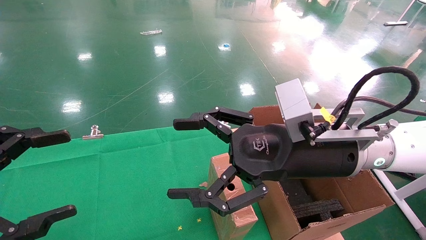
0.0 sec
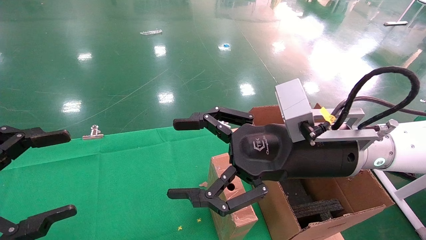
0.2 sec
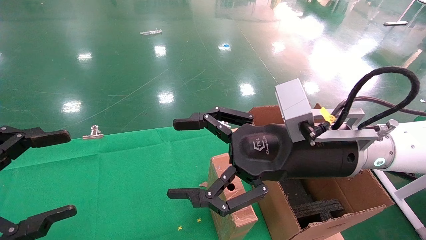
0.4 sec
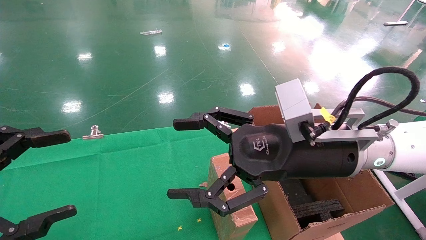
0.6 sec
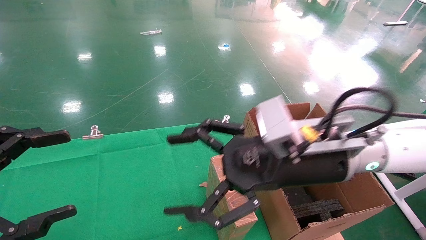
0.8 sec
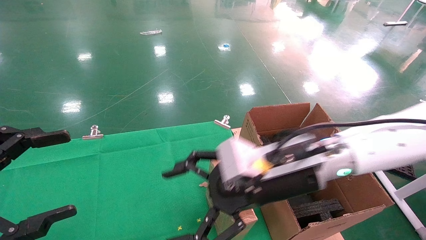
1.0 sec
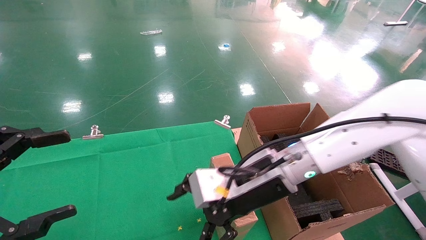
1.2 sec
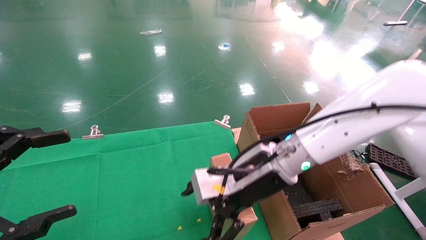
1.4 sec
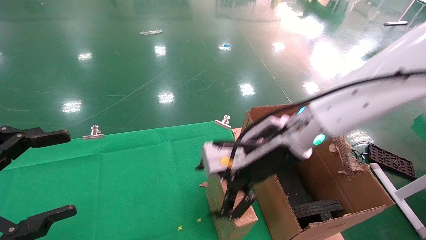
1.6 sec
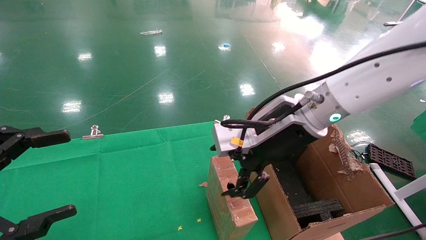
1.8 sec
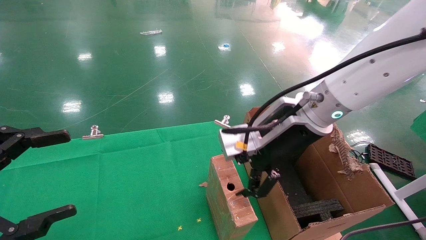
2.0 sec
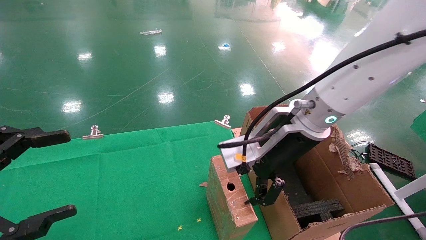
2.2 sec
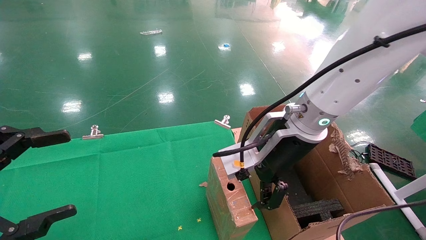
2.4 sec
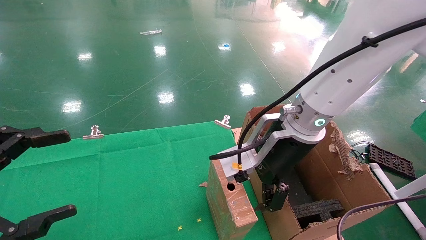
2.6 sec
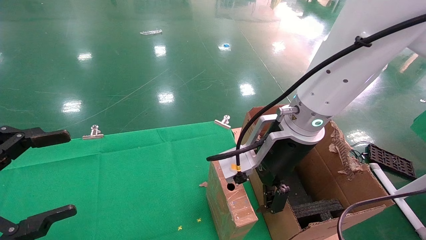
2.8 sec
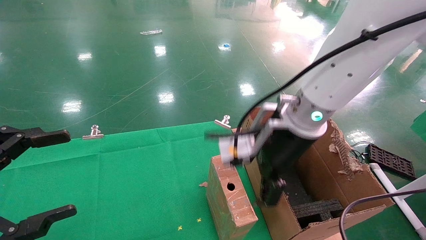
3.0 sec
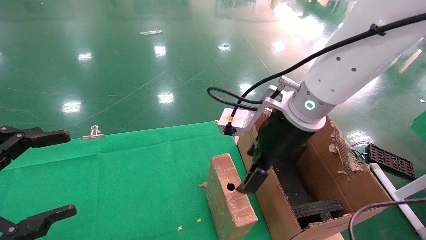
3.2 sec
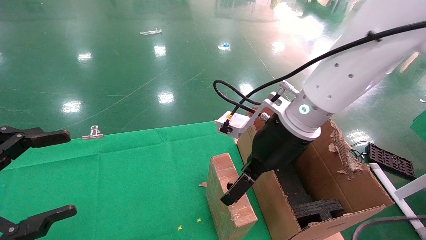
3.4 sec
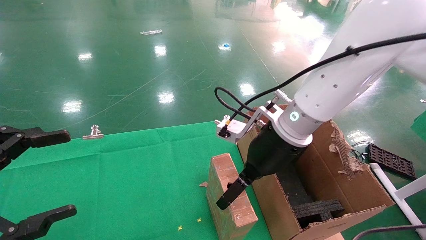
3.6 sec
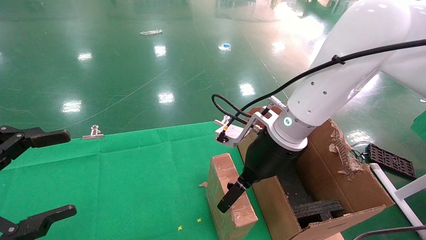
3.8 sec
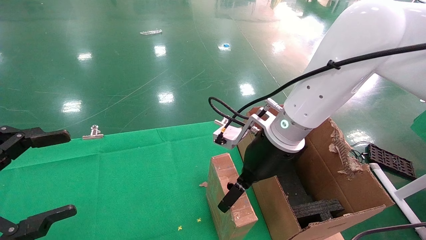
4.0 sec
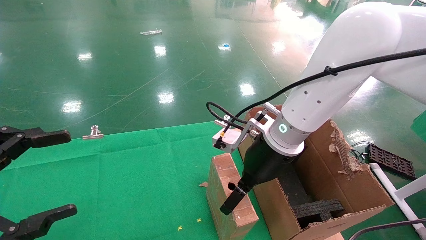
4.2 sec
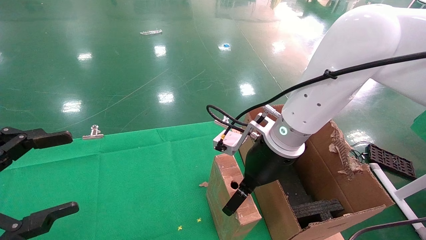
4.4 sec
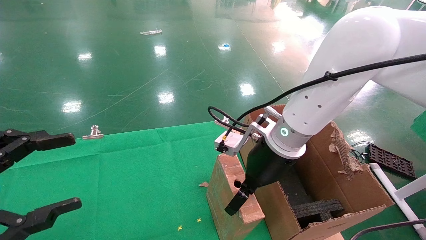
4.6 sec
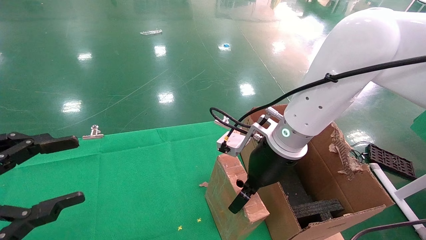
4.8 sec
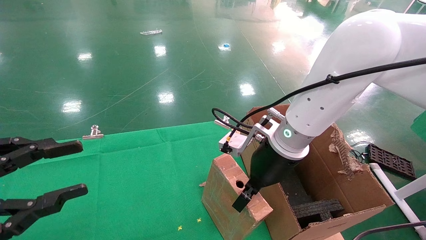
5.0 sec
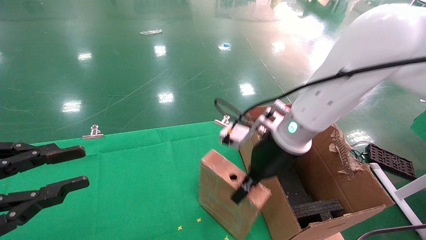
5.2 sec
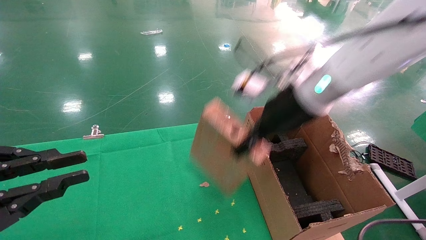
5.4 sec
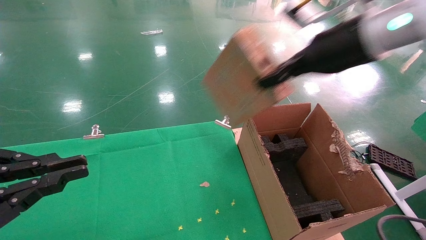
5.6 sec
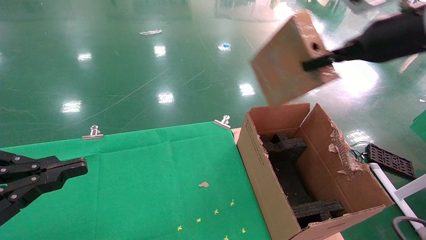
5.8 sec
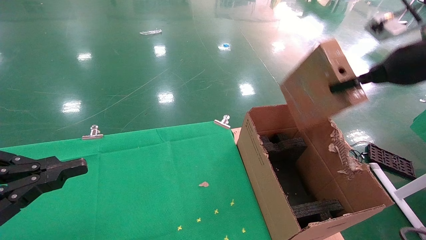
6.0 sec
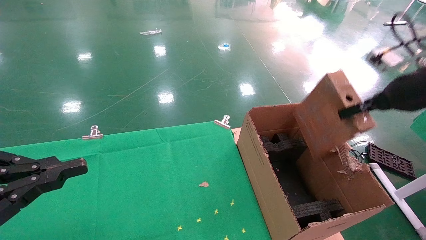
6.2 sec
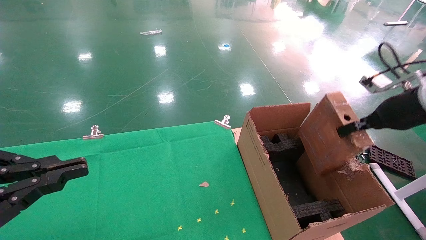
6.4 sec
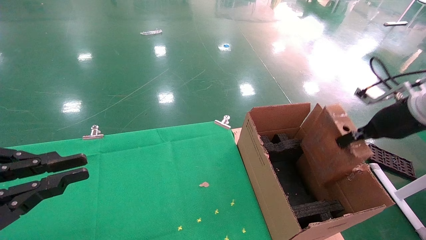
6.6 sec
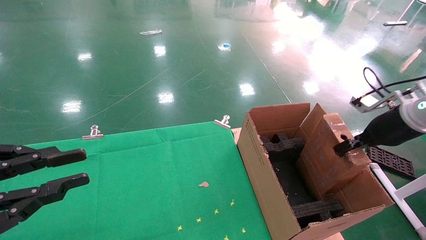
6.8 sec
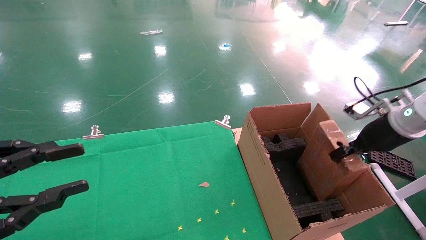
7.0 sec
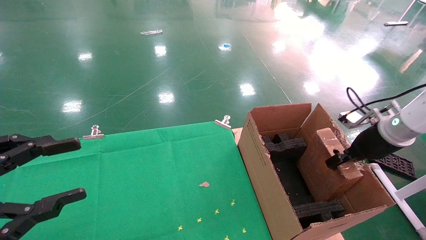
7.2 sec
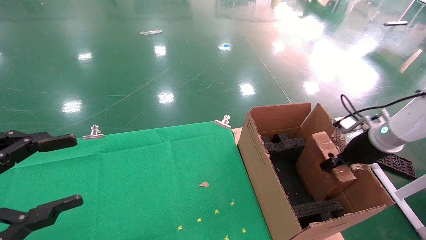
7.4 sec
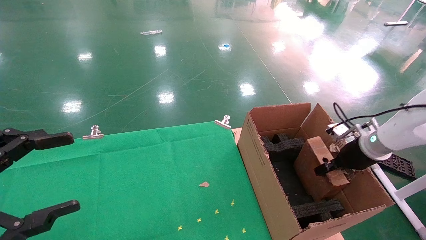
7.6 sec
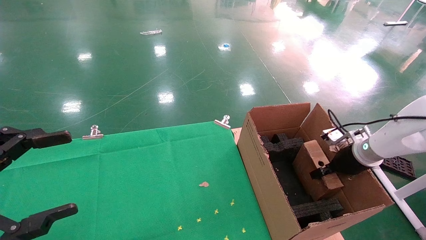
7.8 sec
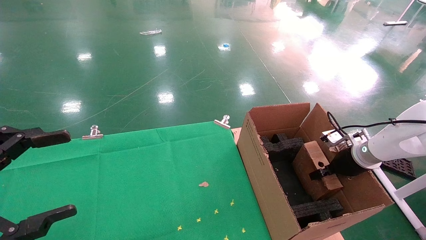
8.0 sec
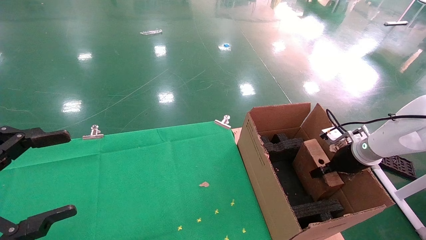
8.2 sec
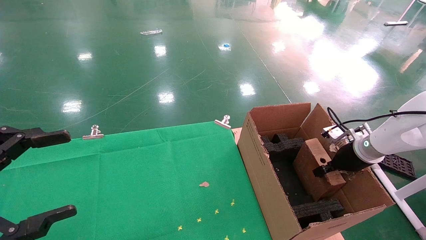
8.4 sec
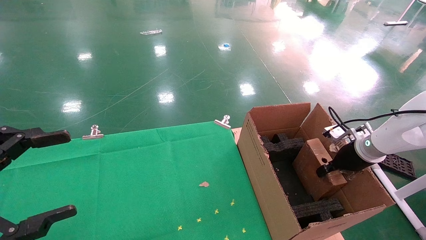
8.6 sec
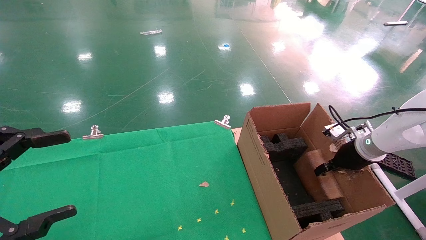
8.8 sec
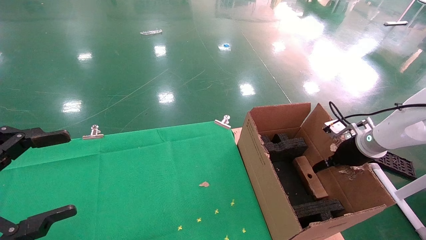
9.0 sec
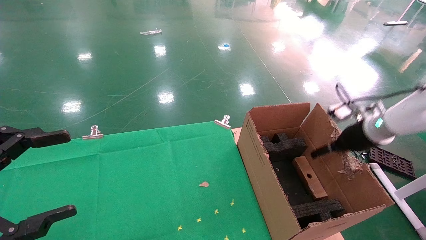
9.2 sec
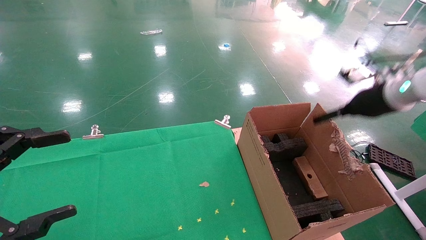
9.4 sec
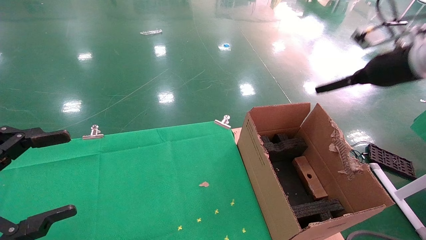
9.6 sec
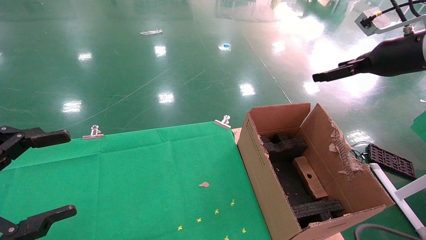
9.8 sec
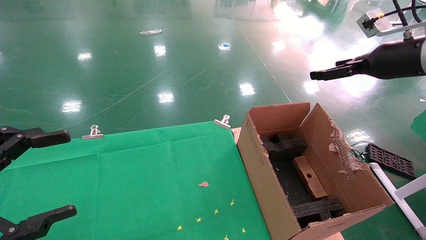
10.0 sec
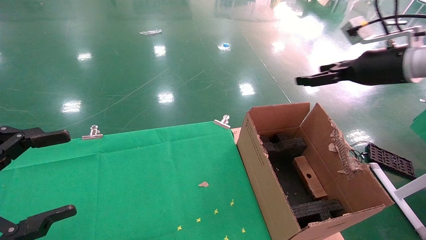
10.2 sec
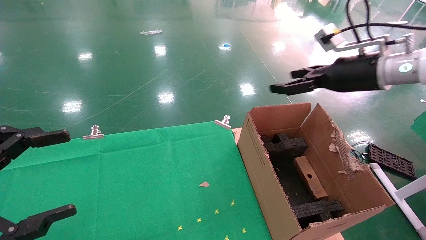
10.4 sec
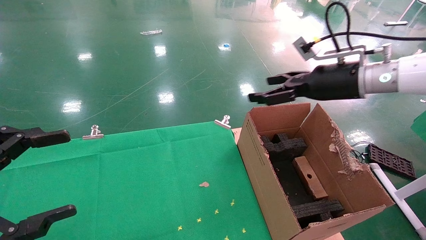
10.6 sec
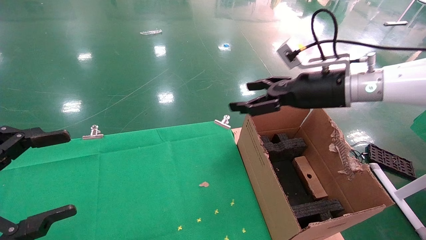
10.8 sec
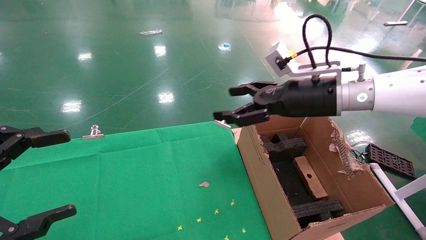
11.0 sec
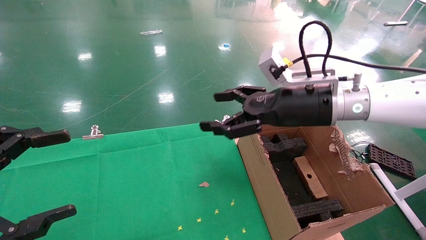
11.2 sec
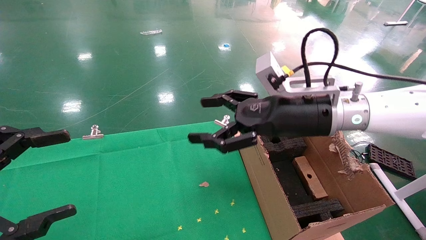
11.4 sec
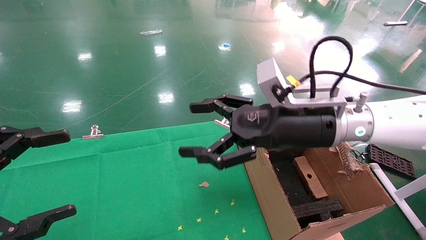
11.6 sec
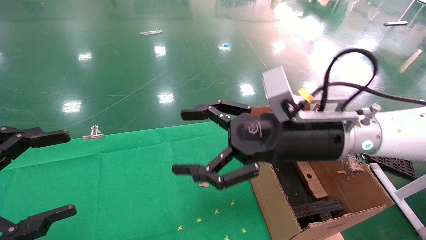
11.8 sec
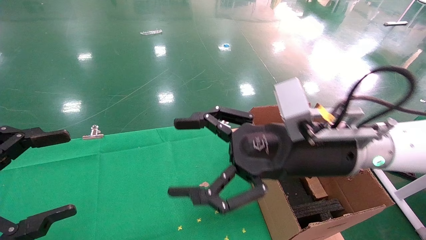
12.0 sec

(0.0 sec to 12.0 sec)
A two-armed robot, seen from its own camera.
Task of the whole recording: using a robotic arm to pick up a cardboard box and palace it the carton.
Step, 1.0 sec - 5.2 sec: Pick up the mouse and the power cord paper box.
Step, 5.4 sec - 9.4 sec: Place the mouse and the power cord paper box into the container.
0.0 sec - 1.6 sec: The right gripper travels forward by approximately 5 cm.
3.0 sec - 4.4 sec: The right gripper changes place by about 5 cm.
4.4 sec - 6.0 sec: The left gripper closes up; the right gripper goes some 30 cm to the right and upward, and closes its fingers.
6.0 sec - 7.6 sec: The left gripper opens up. The right gripper travels downward by some 20 cm.
7.6 sec - 9.0 sec: The right gripper opens up.
9.0 sec - 10.4 sec: The right gripper is displaced upward and to the left by approximately 20 cm, and opens its fingers.
10.4 sec - 12.0 sec: The right gripper travels to the left, backward and downward by some 20 cm.

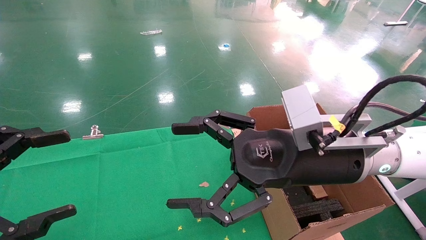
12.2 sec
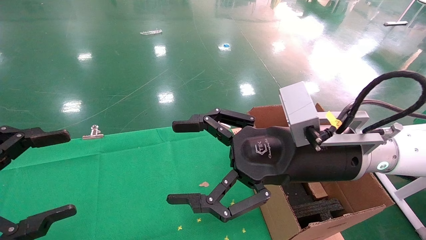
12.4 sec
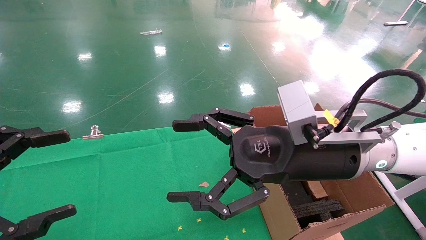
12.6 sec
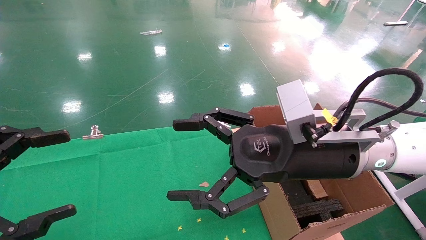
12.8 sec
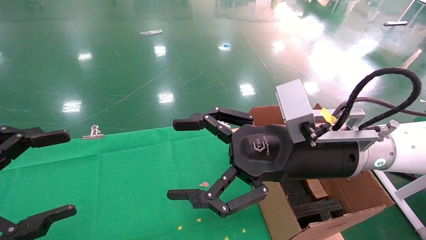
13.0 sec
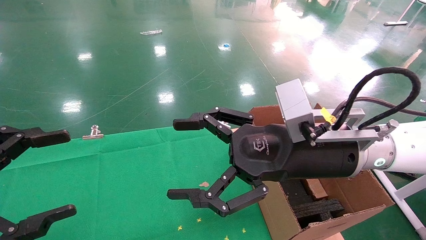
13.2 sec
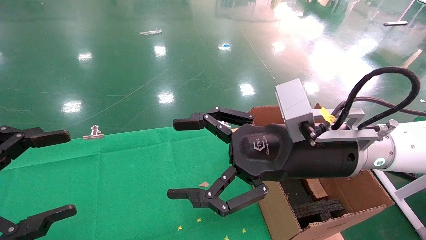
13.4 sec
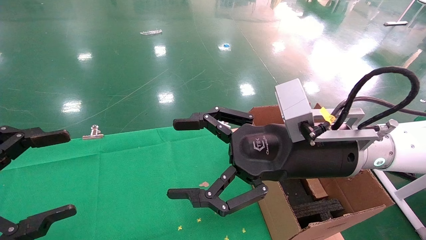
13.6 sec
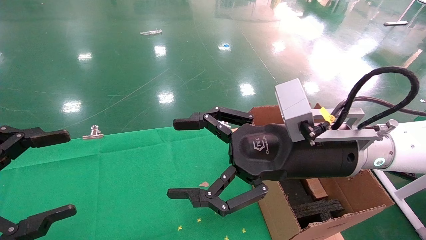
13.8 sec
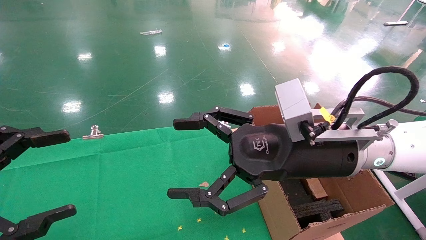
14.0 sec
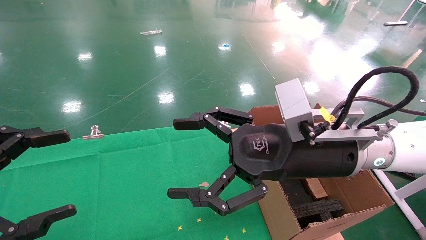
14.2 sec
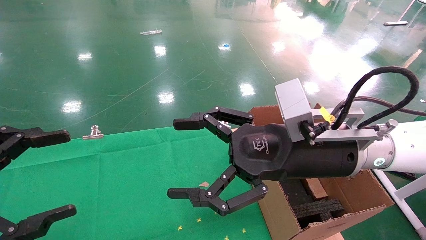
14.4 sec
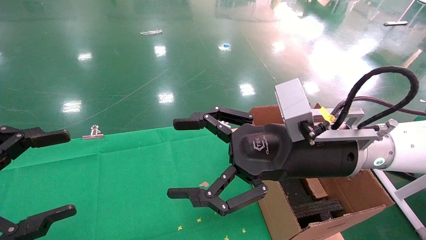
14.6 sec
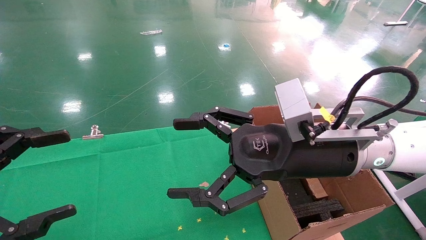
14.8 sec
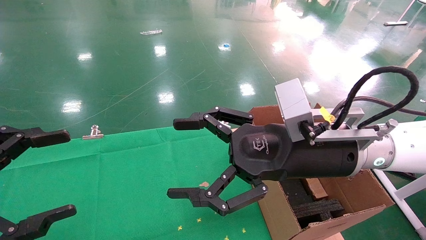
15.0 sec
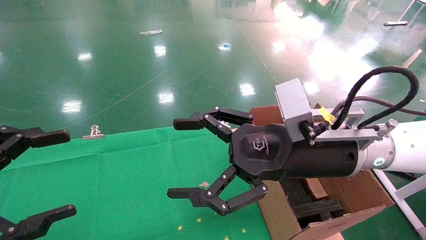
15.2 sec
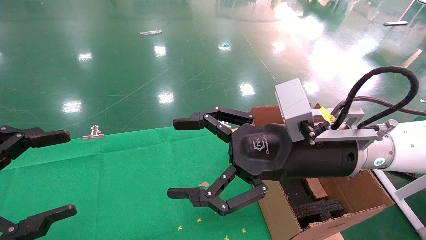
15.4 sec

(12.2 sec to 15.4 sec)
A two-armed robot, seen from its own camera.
Task of the whole recording: using a robotic arm to pick up a cardboard box and palace it the carton.
12.2 sec - 15.4 sec: The two grippers keep their place.
